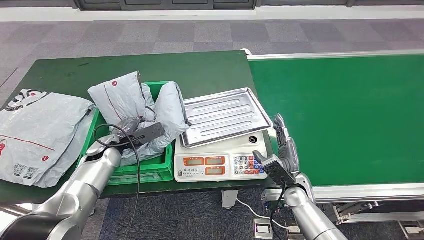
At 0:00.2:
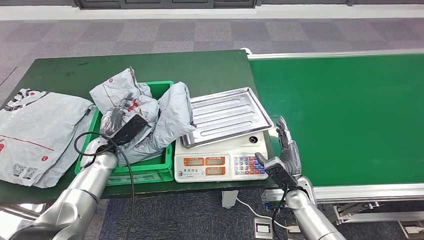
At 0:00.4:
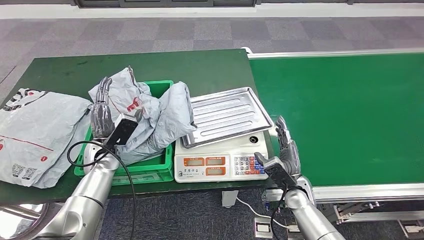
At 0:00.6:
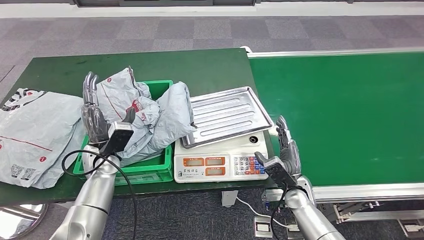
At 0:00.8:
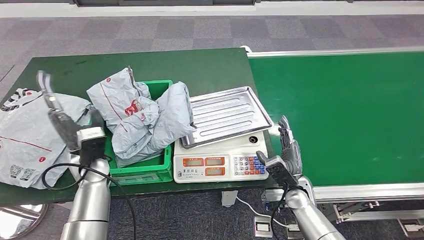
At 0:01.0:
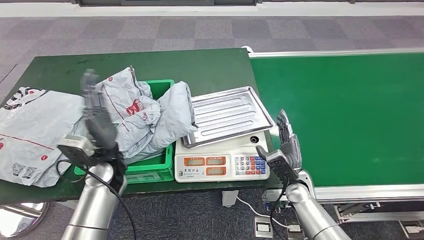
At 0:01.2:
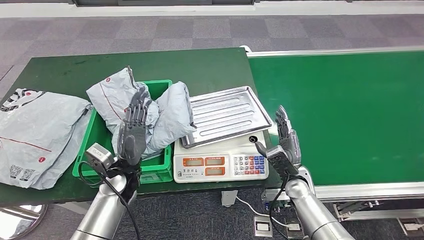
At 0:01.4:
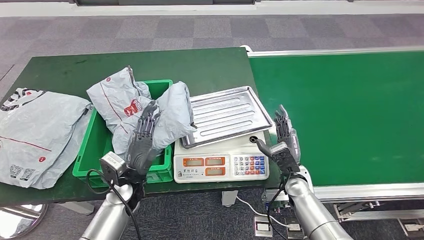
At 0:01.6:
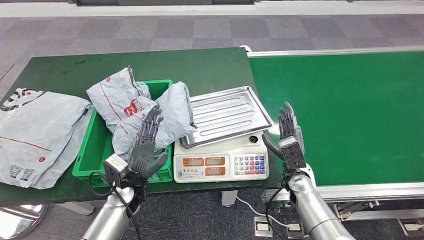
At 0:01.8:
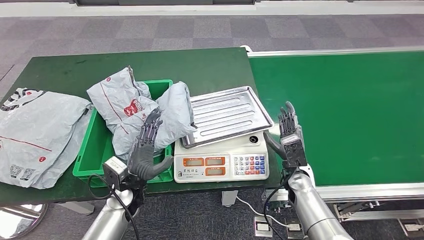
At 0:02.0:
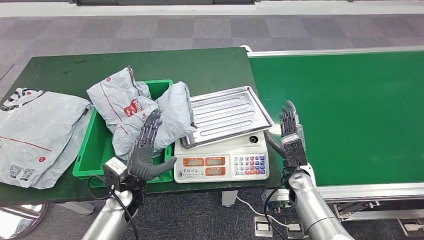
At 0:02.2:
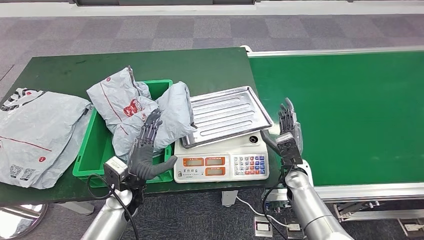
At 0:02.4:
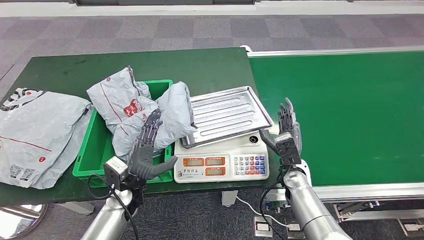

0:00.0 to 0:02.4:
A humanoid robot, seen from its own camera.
Step, 0:00.0 to 0:02.4: Place the parcel into the delivery box.
0:01.2 to 0:02.4: The left hand shifts by about 5 cm.

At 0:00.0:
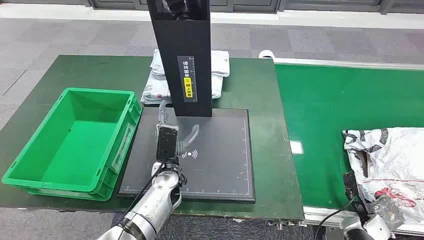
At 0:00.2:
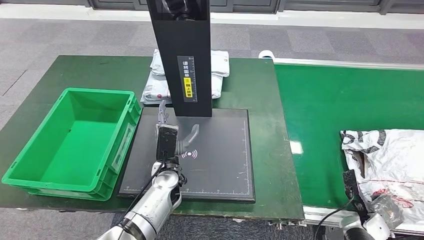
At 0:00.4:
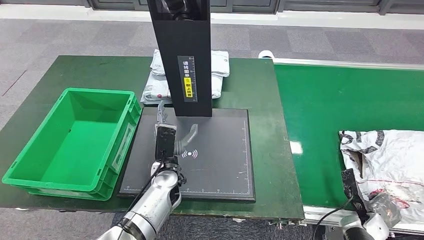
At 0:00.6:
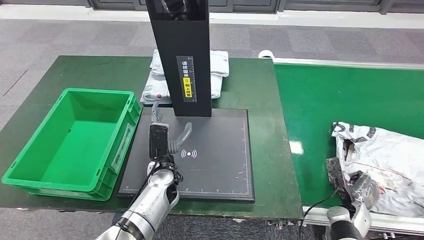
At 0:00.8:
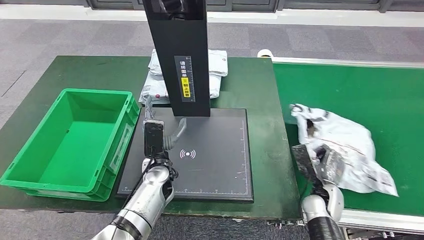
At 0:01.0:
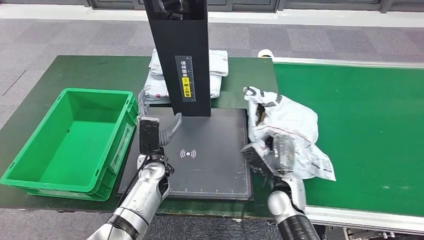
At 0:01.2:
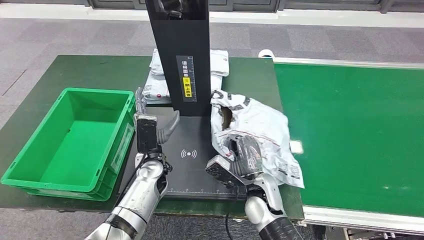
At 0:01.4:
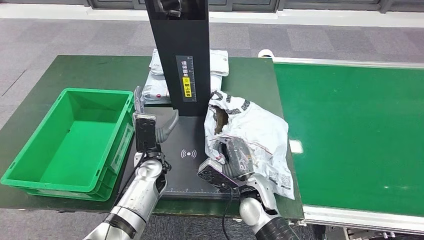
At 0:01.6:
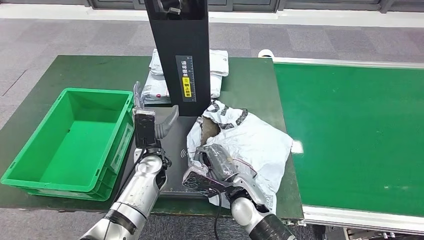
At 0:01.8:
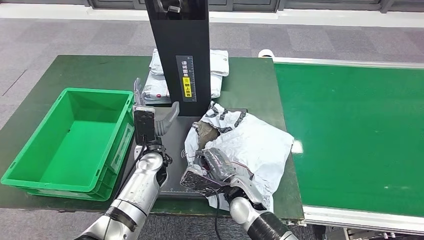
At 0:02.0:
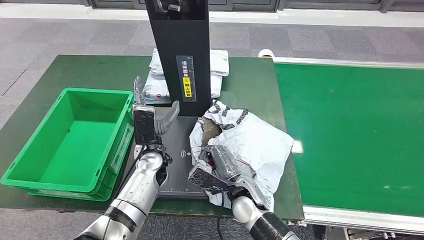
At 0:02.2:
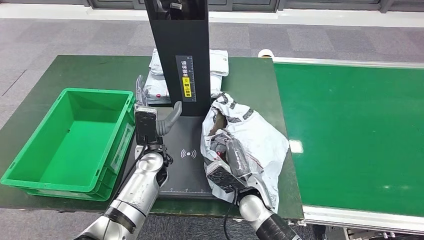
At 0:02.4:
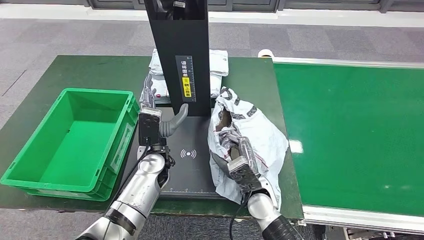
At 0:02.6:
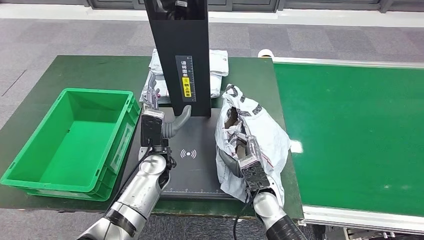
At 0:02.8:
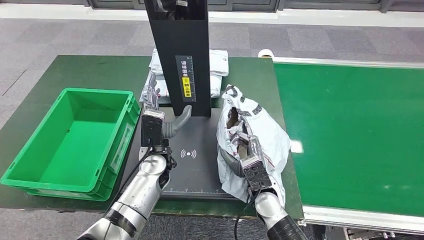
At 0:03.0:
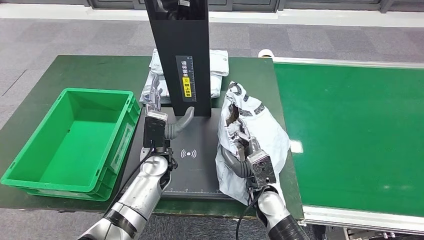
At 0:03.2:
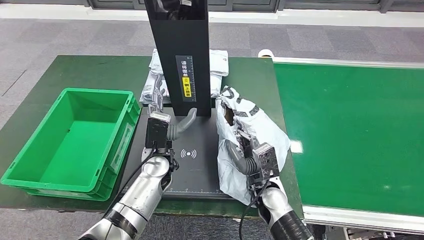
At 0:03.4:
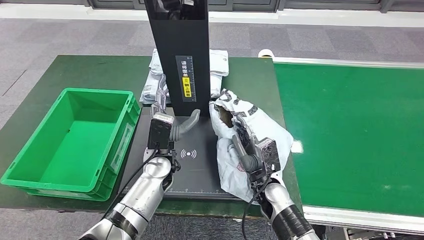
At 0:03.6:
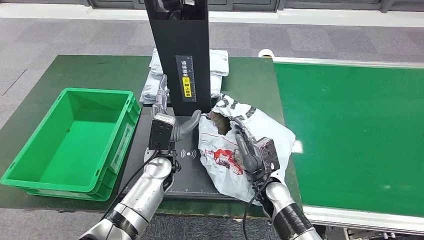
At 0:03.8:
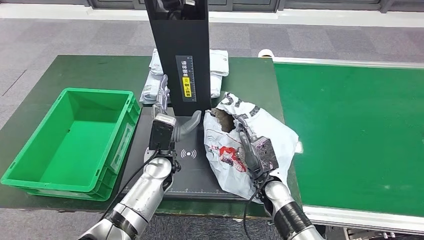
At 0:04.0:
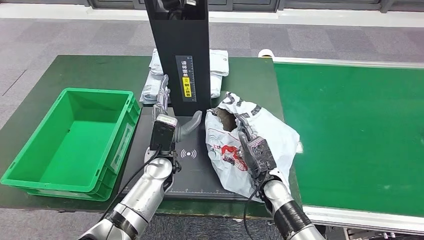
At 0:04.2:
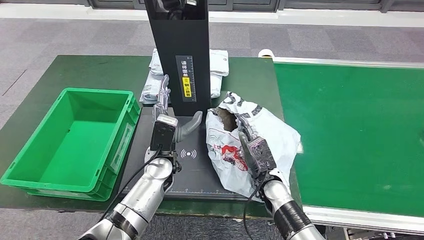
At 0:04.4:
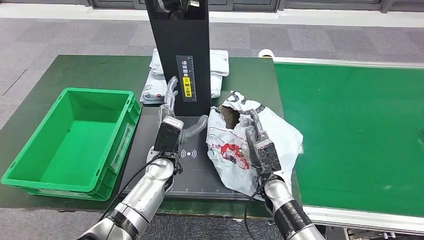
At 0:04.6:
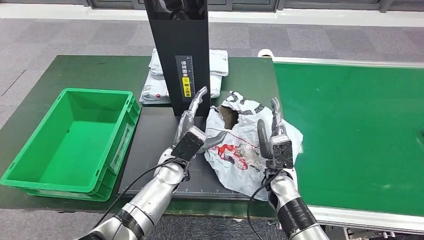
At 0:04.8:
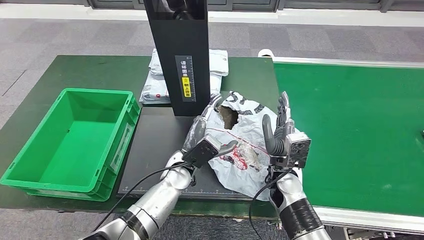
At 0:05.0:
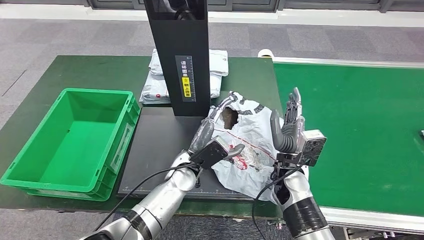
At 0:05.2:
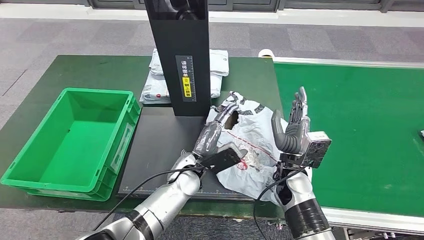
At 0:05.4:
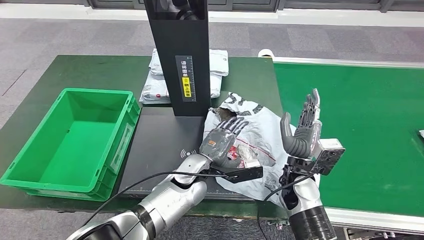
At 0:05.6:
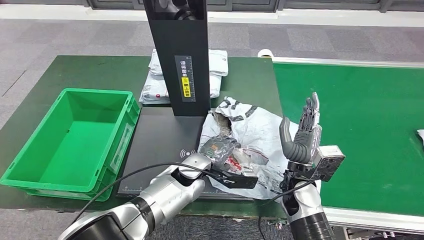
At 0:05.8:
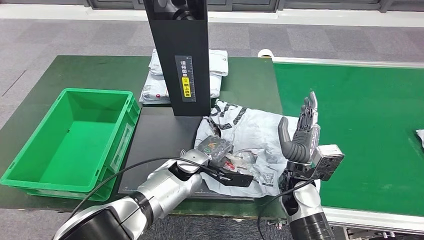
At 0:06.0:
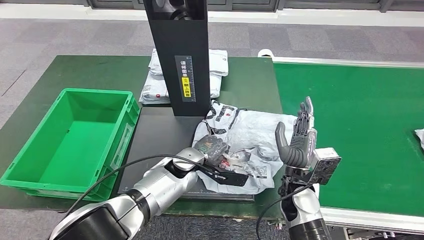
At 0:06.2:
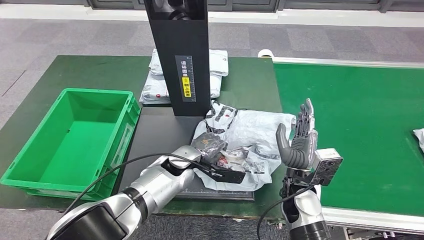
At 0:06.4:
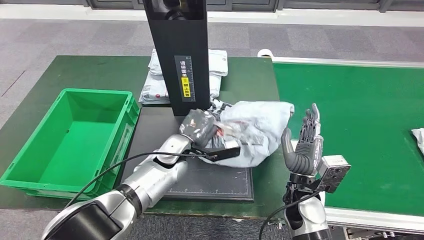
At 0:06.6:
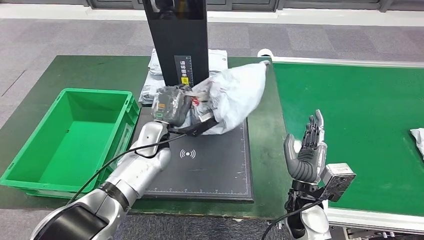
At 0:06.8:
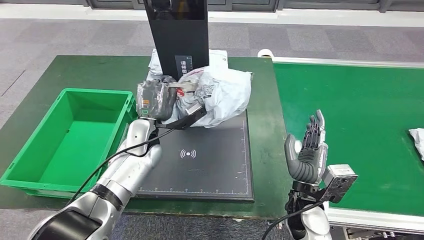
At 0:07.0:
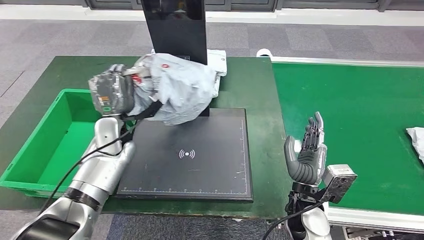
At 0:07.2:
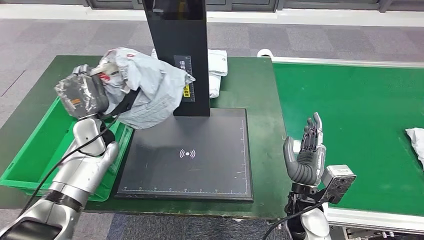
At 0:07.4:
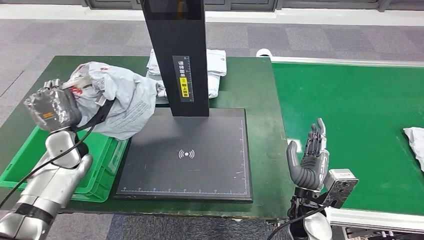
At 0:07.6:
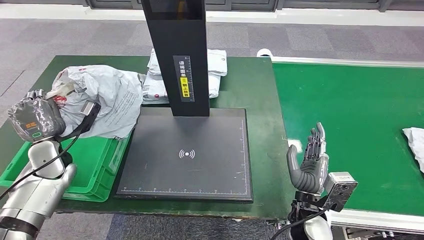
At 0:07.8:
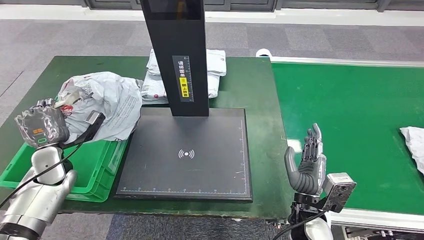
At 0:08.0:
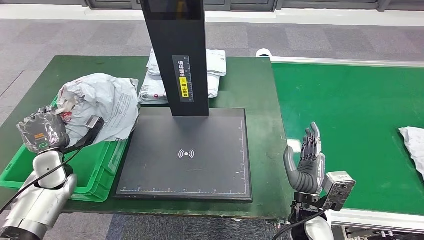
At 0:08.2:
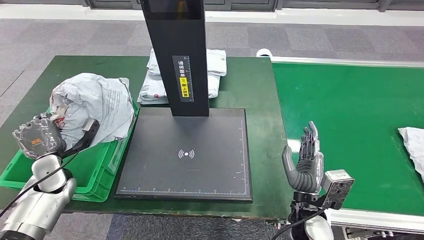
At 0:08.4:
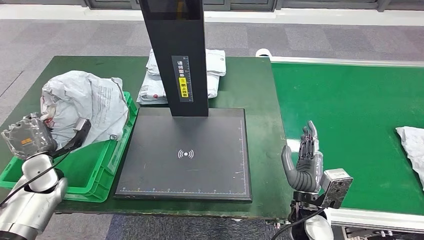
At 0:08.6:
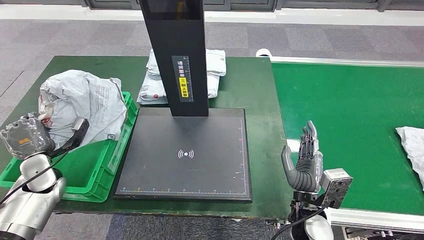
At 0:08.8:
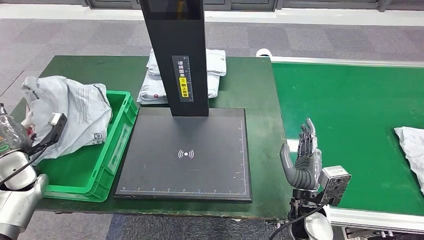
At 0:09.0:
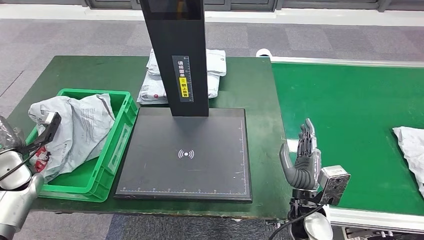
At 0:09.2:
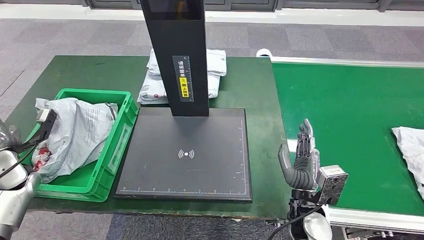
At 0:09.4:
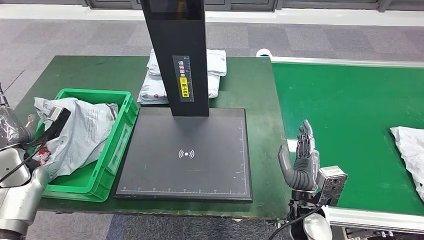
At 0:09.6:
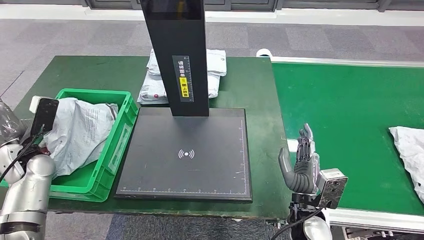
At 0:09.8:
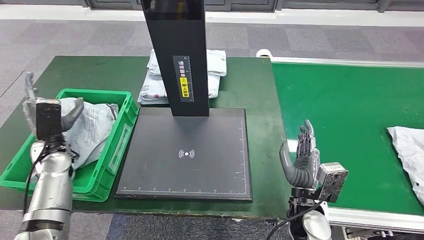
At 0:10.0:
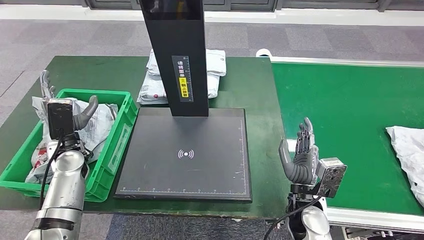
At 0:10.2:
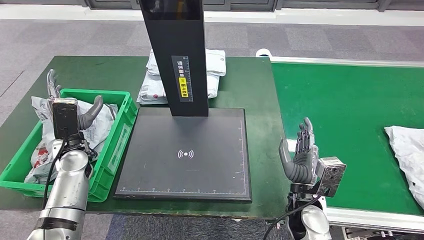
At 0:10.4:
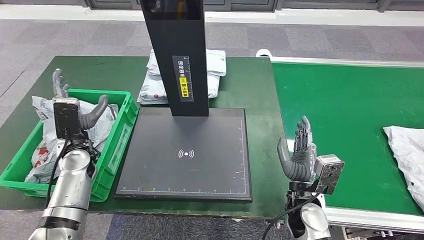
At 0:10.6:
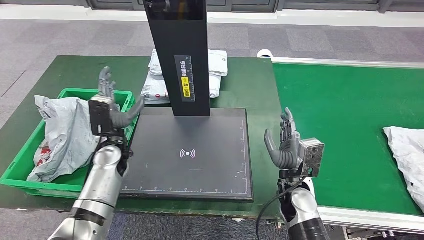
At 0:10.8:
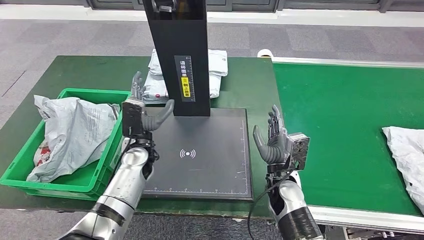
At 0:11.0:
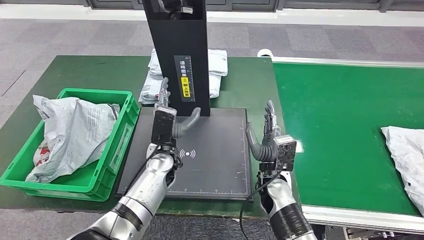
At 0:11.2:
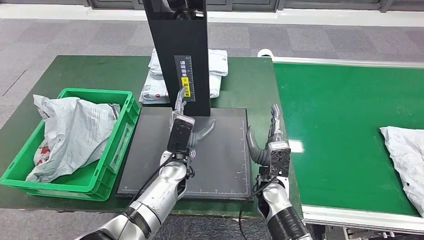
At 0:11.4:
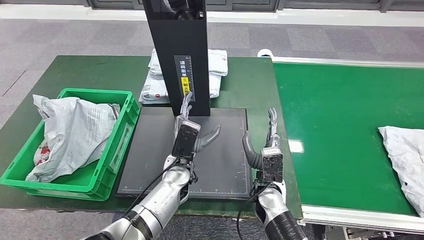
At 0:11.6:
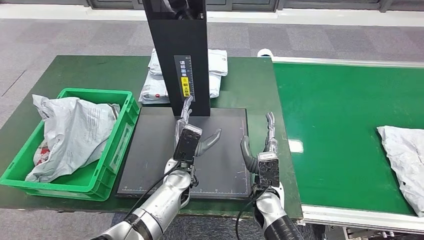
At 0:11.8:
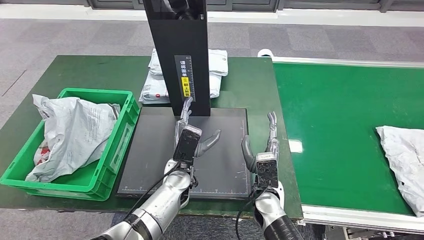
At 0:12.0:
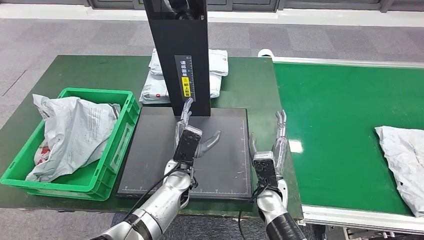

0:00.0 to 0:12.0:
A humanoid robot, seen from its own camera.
Step, 0:00.0 to 0:02.2: Take the parcel off the conveyor belt.
Step, 0:02.6 to 0:04.6: Place the parcel onto the inbound machine.
Step, 0:04.8 to 0:07.6: Pick up the parcel from the inbound machine.
Step, 0:08.0 to 0:11.6: Put the parcel inside the courier box.
0:01.6 to 0:03.0: The right hand heads to the right, covering about 5 cm.
0:03.0 to 0:04.4: There are only small adjustments of the hands.
0:07.6 to 0:09.0: The left hand heads to the left, covering about 10 cm.
0:09.0 to 0:10.4: The left hand is displaced to the right by roughly 15 cm.

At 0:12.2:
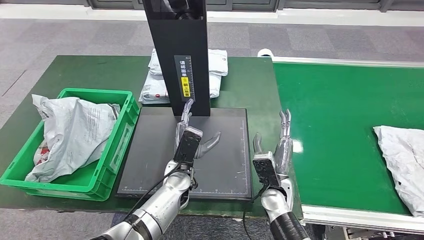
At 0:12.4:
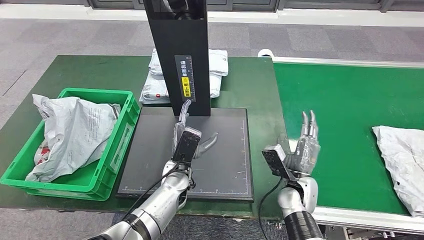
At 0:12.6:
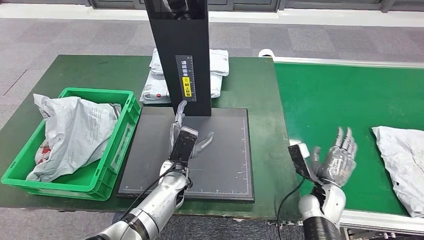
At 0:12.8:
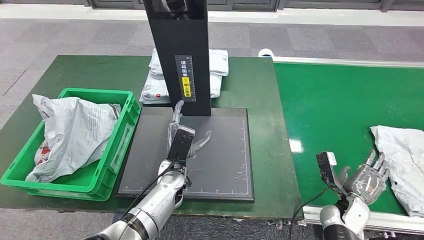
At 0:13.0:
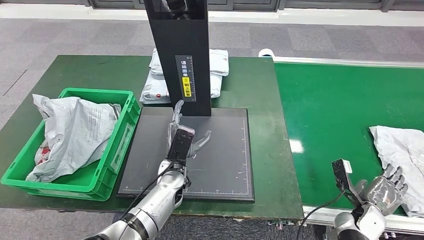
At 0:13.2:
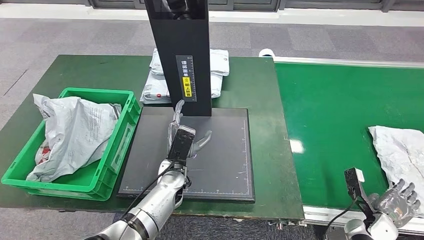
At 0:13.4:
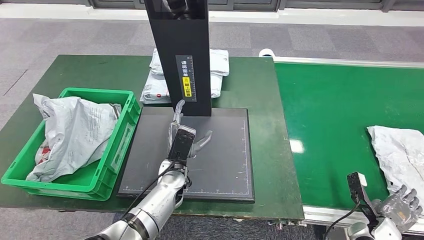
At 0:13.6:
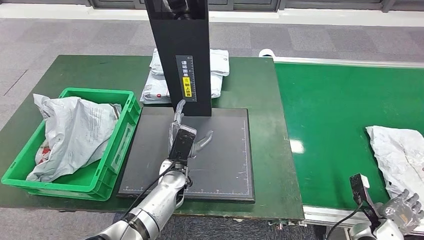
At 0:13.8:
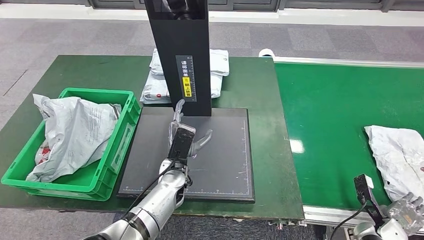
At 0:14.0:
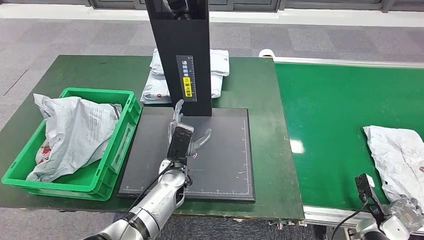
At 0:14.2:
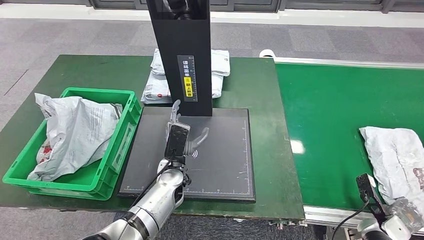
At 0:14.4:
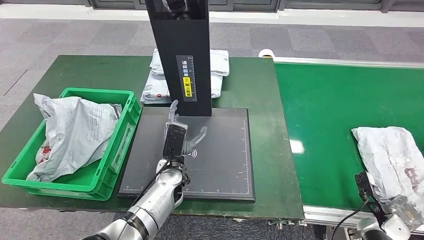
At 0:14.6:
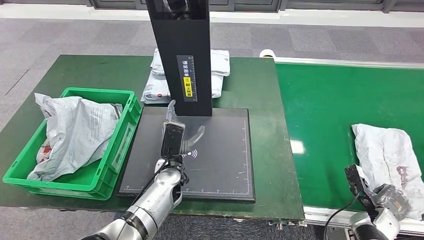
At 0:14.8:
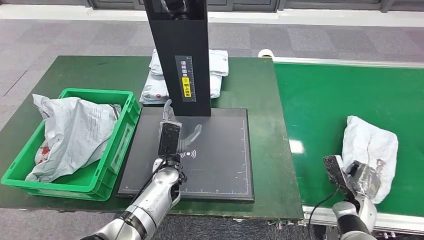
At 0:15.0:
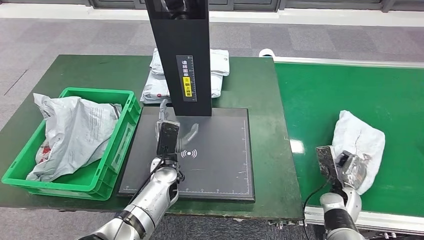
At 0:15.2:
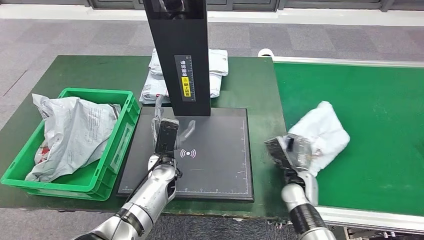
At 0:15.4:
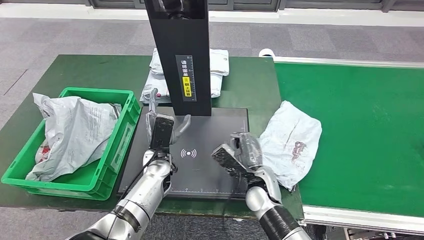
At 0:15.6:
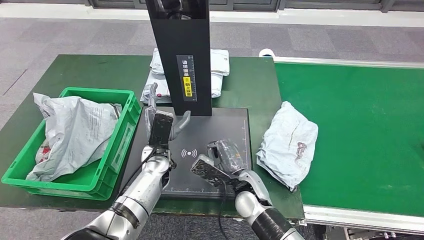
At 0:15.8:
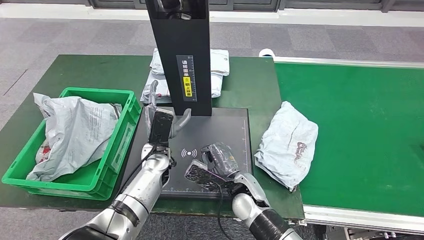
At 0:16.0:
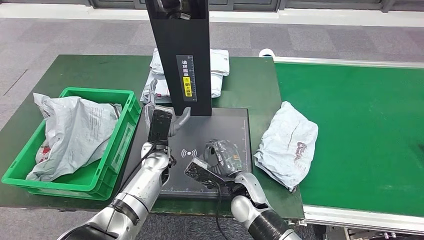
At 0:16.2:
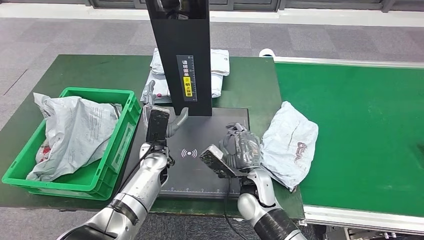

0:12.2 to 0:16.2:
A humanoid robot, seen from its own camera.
0:12.2 to 0:13.6: The right hand travels to the right by approximately 30 cm.
0:13.6 to 0:14.8: The right hand shifts approximately 5 cm forward.
